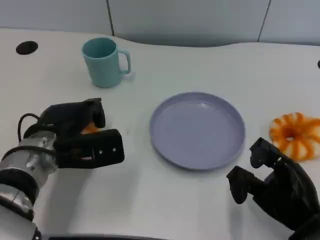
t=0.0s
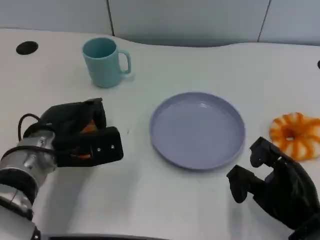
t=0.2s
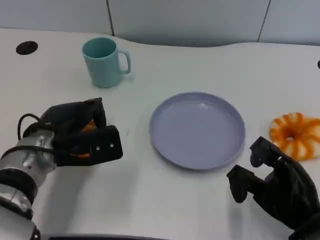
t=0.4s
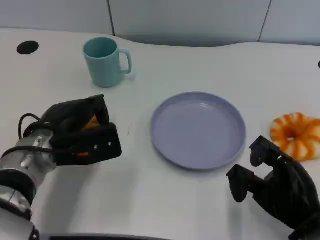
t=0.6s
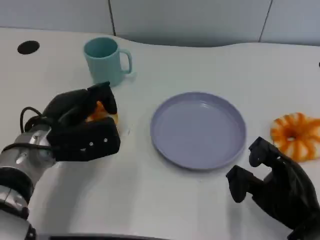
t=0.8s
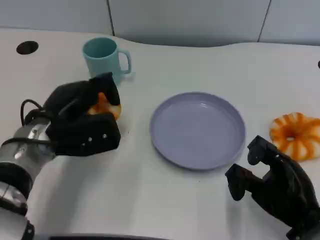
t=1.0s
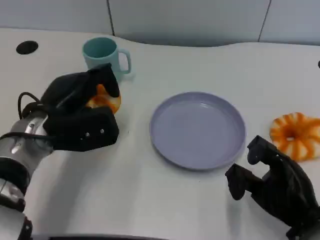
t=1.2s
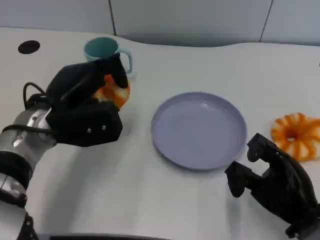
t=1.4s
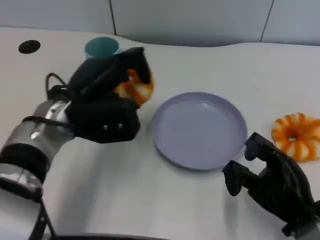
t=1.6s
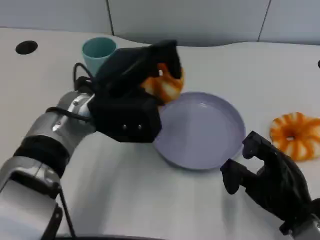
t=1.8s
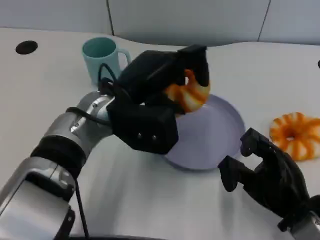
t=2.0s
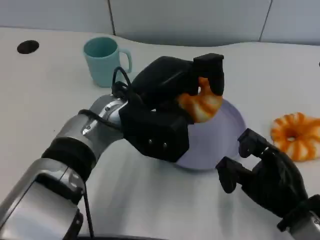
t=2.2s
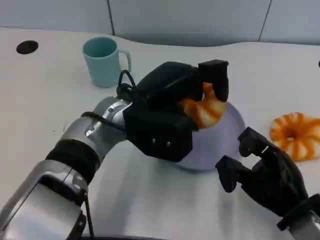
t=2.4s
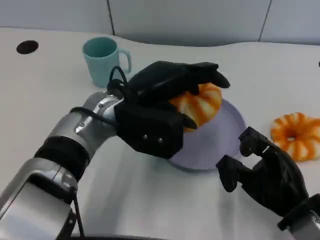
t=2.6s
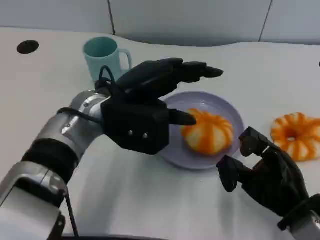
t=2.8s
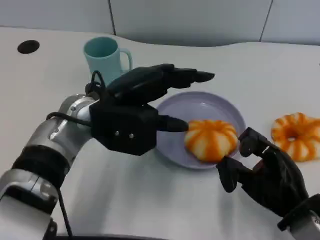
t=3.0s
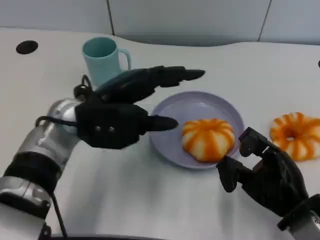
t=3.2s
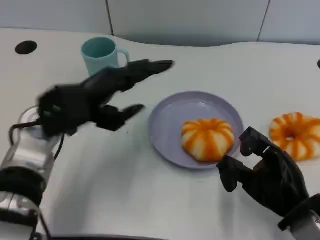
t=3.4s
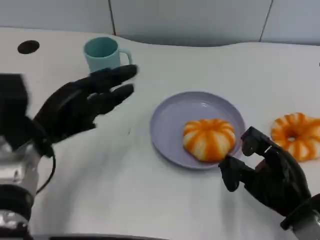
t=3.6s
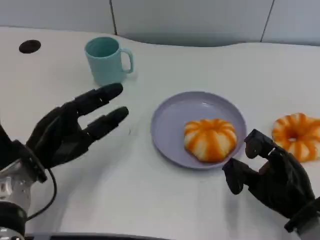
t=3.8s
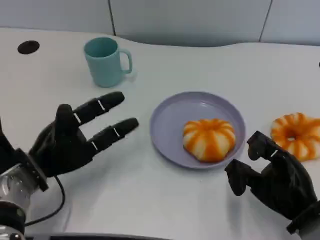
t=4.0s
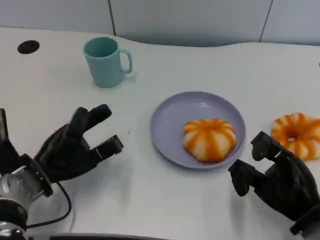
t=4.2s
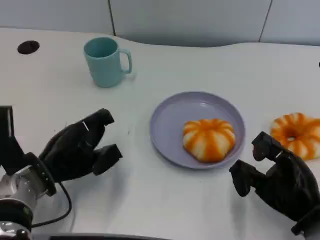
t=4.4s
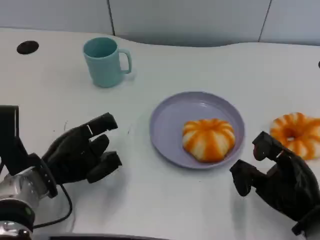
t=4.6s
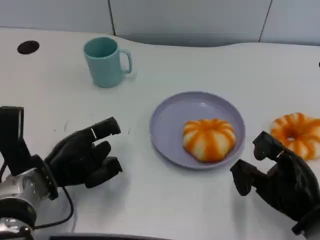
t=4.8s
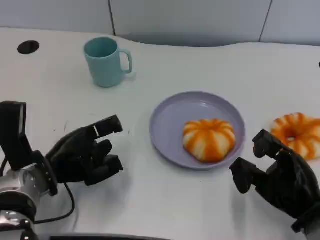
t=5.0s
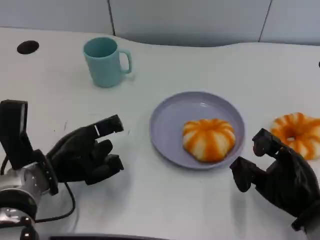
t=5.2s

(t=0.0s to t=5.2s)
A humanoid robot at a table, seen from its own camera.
Task of the whole recording: Grasp the bread from the table and place it into the plate.
t=0.0s - t=1.8s: The left hand is displaced to the right and upward by roughly 10 cm.
t=1.8s - t=3.4s: The left hand moves to the left, some 10 cm.
t=3.4s - t=5.2s: The left hand goes roughly 10 cm downward.

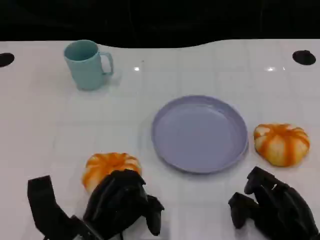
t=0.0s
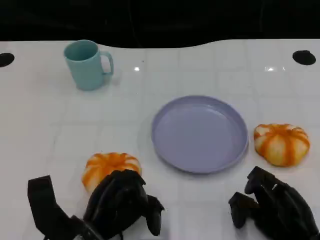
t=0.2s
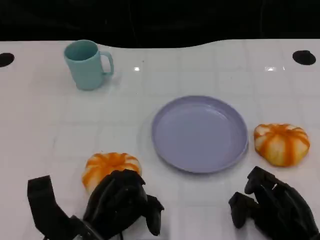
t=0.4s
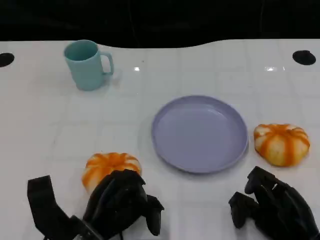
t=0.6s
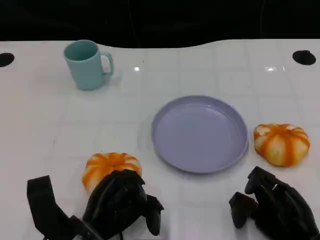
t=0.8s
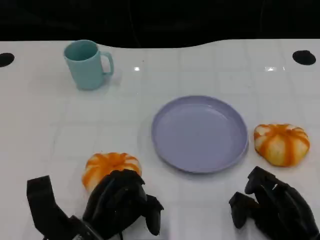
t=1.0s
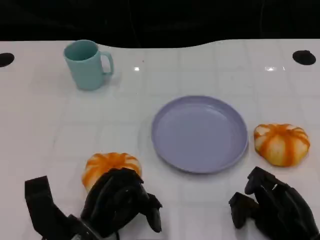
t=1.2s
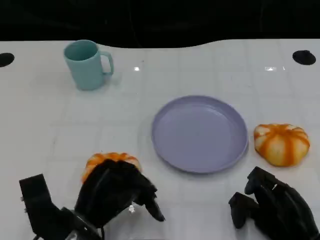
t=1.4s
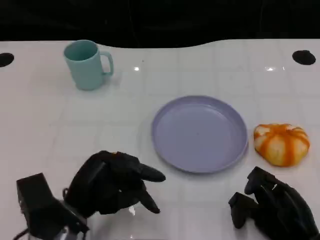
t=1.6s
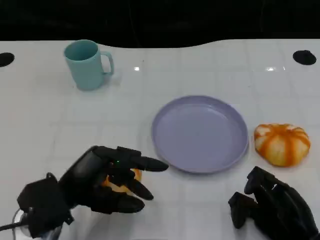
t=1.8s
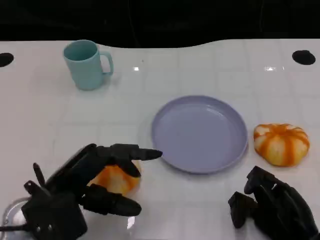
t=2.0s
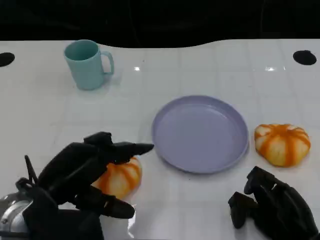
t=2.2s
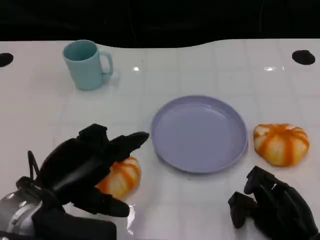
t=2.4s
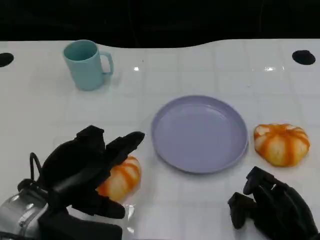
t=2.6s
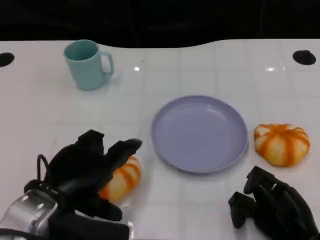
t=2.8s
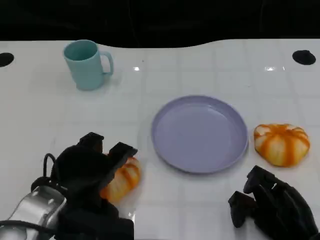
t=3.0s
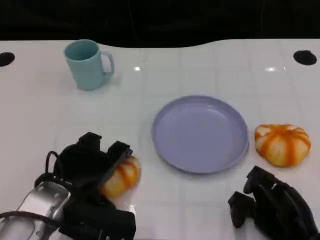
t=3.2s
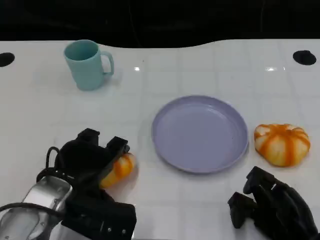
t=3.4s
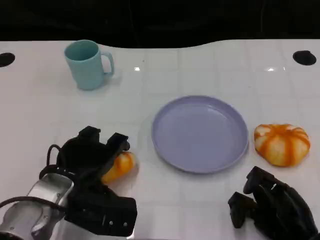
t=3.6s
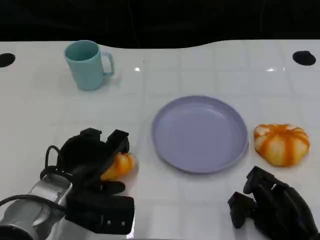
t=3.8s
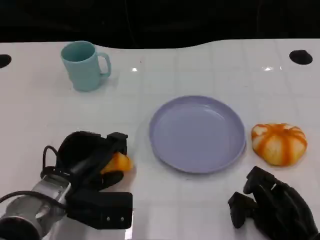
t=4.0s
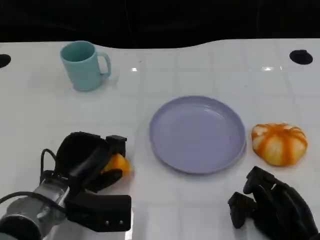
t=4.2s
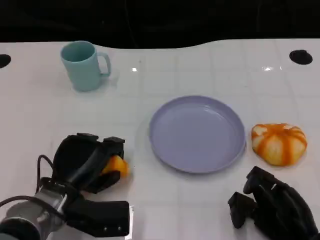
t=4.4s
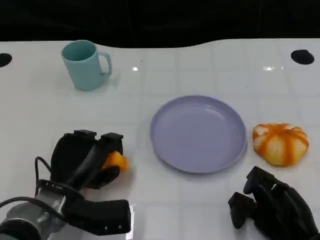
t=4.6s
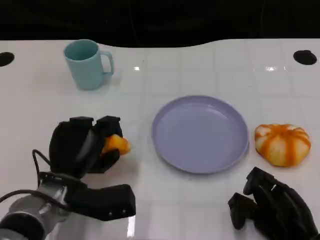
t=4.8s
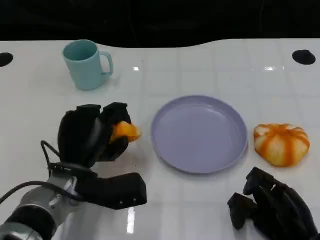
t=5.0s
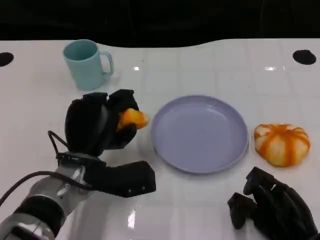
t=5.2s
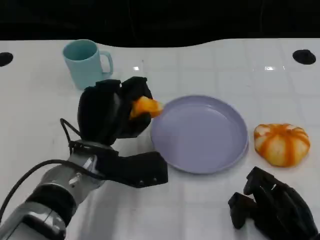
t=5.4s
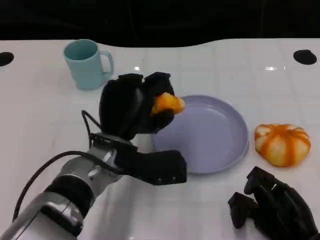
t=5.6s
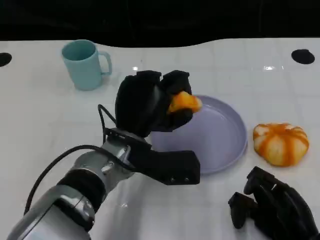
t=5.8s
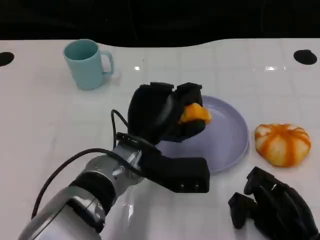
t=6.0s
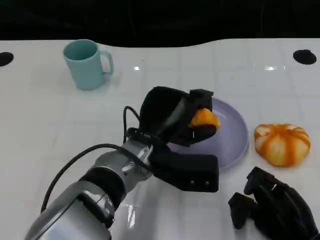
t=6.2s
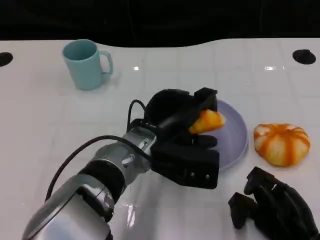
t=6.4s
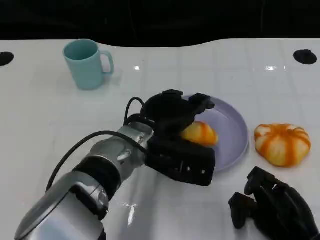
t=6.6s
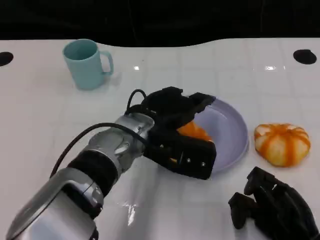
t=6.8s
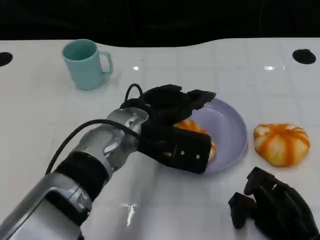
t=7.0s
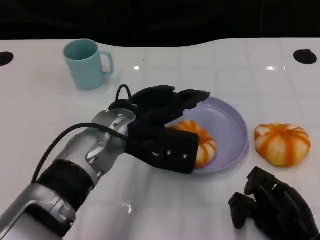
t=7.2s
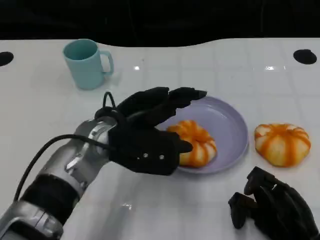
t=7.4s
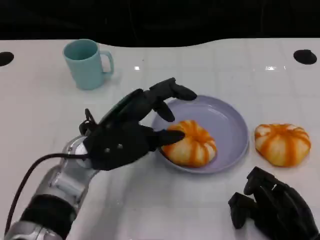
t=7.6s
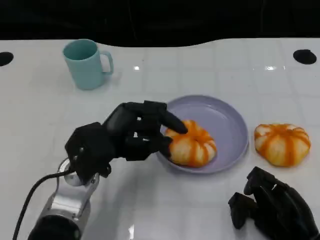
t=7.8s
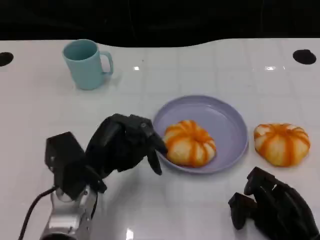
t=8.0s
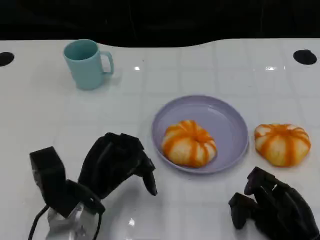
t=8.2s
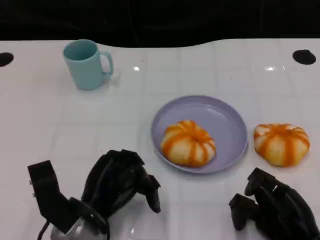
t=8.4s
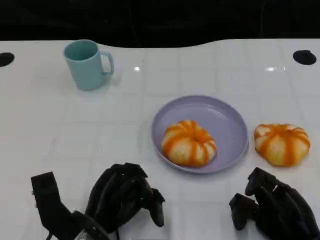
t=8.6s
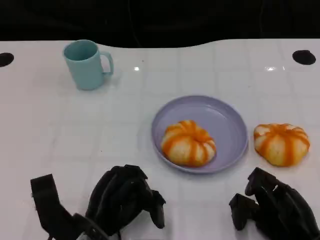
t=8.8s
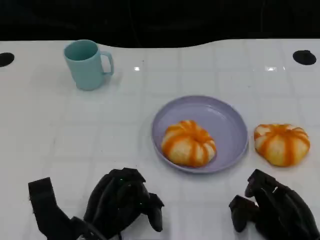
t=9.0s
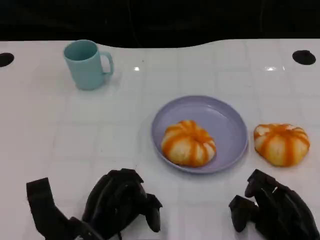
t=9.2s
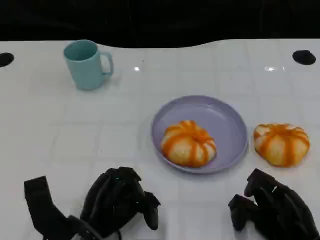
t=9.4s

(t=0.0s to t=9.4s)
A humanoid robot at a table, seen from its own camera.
Task of the whole recording: Grasp the bread from the table and place it into the plate.
t=3.2s - t=4.8s: The left hand shifts by about 5 cm.
t=4.8s - t=6.2s: The left hand heads to the right and upward, covering approximately 15 cm.
t=6.2s - t=7.8s: The left hand travels to the left by about 10 cm.
t=7.8s - t=9.4s: The left hand heads backward and downward, covering roughly 10 cm.

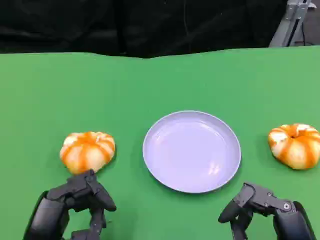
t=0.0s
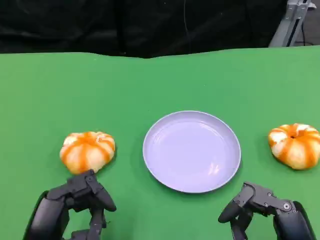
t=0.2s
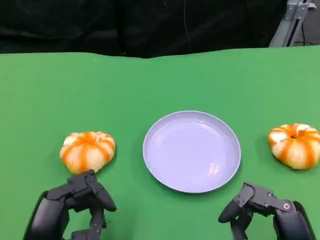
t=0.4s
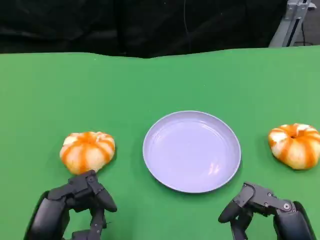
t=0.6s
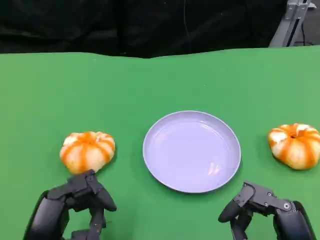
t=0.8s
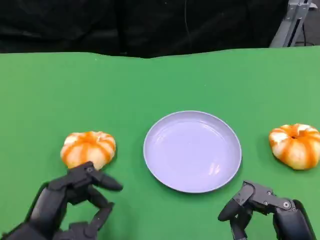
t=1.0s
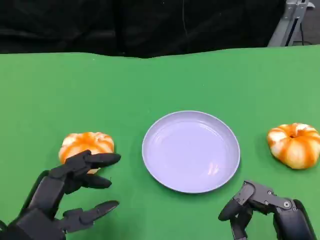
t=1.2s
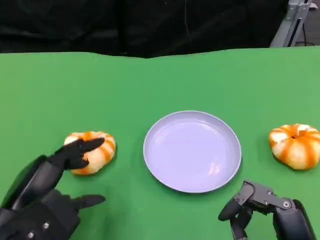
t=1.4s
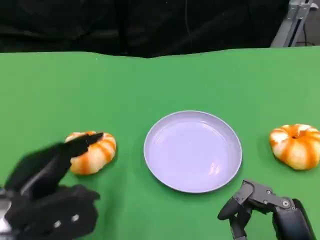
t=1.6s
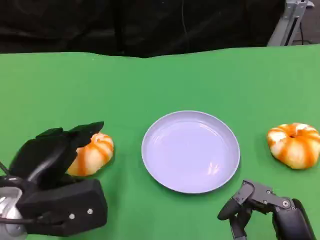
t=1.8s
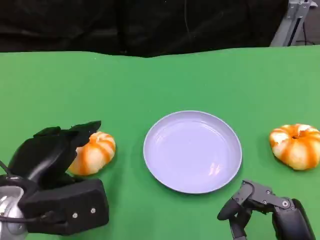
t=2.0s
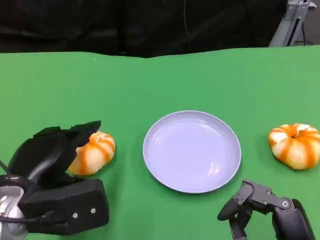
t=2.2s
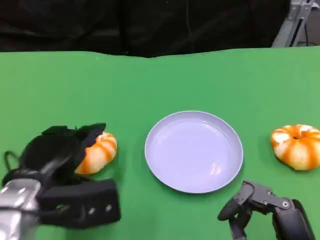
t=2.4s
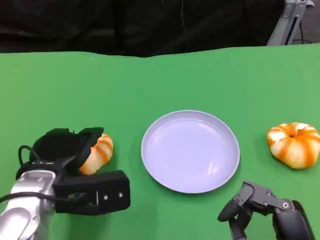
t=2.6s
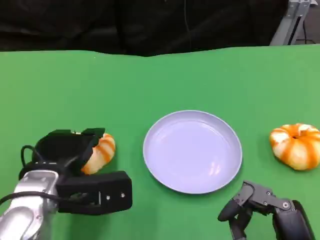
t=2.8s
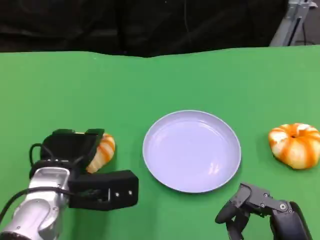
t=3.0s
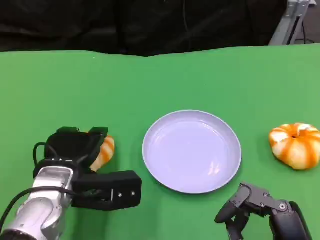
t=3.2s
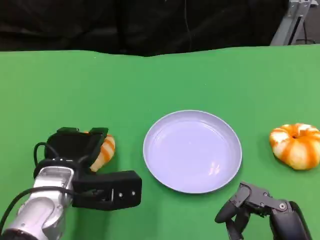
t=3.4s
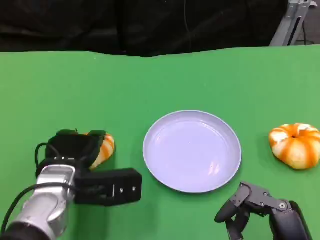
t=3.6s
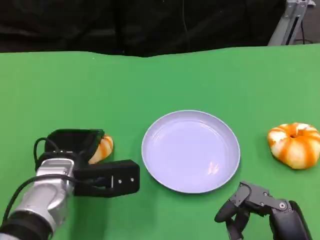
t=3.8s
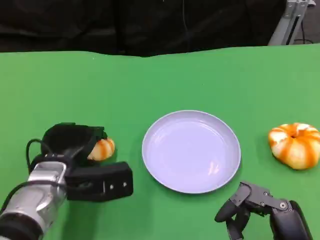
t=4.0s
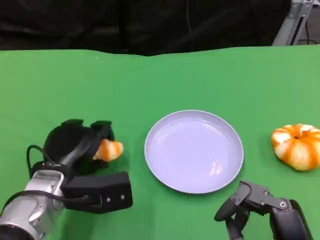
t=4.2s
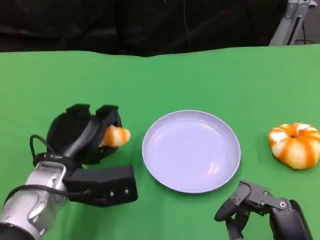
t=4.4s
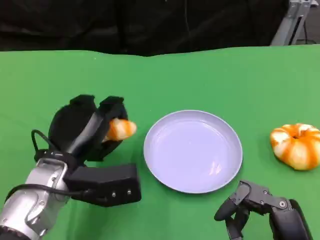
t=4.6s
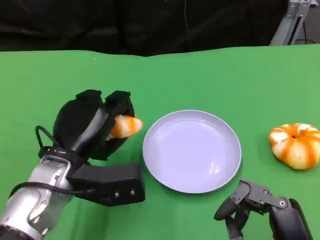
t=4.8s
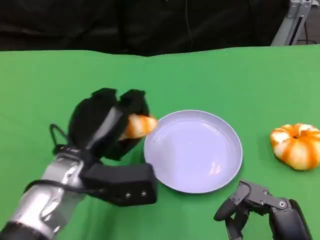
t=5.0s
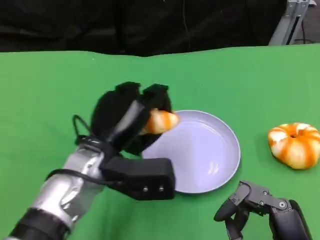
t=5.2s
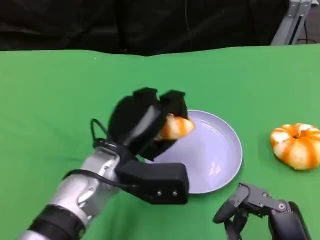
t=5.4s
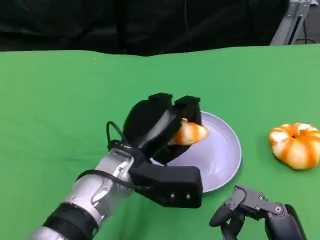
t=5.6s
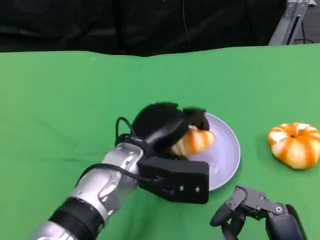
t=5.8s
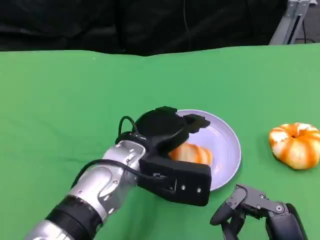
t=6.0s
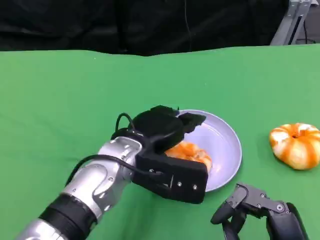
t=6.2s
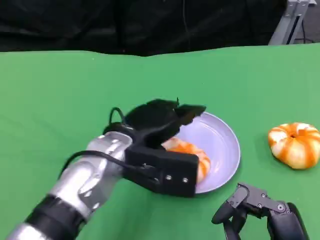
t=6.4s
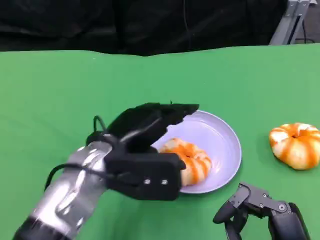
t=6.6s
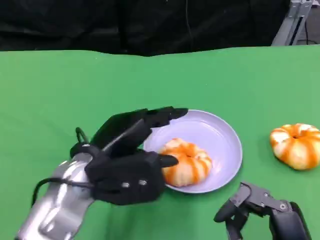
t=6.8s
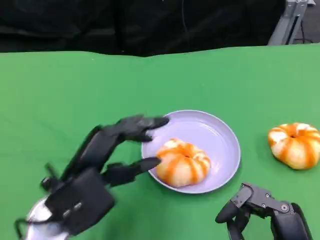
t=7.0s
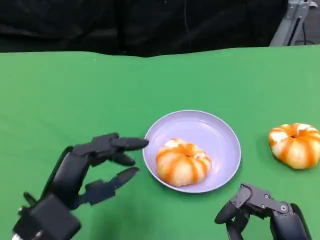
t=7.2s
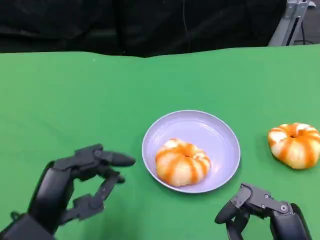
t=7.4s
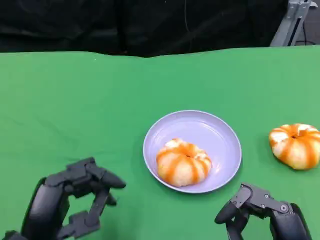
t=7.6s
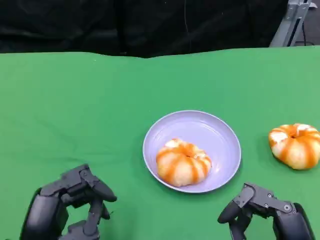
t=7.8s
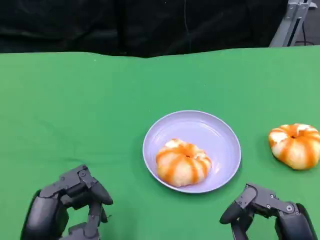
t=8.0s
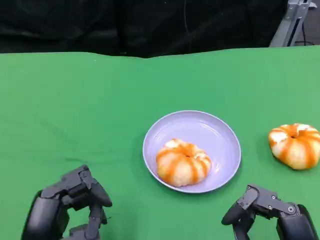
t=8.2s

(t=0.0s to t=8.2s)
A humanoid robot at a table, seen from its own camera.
Task of the whole recording: Grasp the bread from the table and place it into the plate.
t=0.0s - t=1.6s: The left hand is displaced forward by some 5 cm.
t=1.6s - t=3.2s: The left hand moves forward and to the right, roughly 10 cm.
t=6.6s - t=8.2s: The left hand is displaced backward, to the left and downward by approximately 15 cm.
